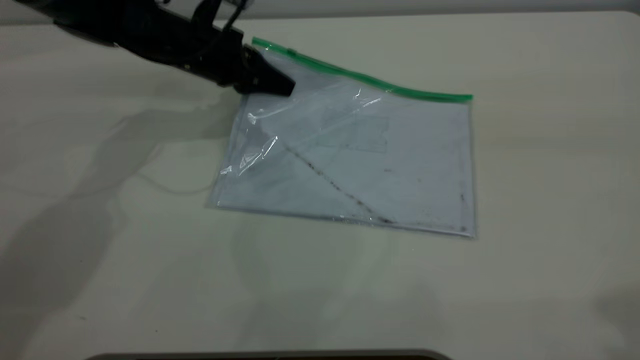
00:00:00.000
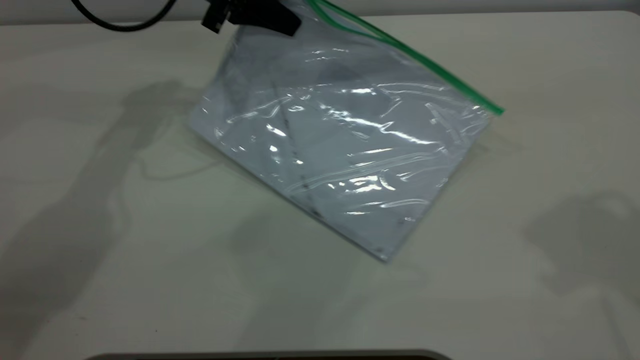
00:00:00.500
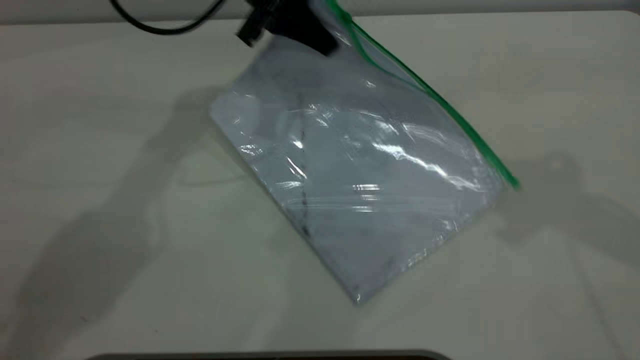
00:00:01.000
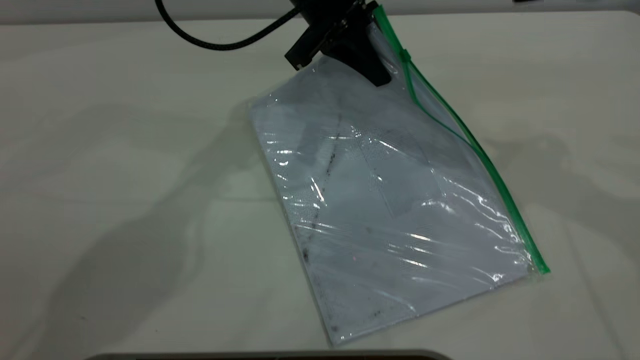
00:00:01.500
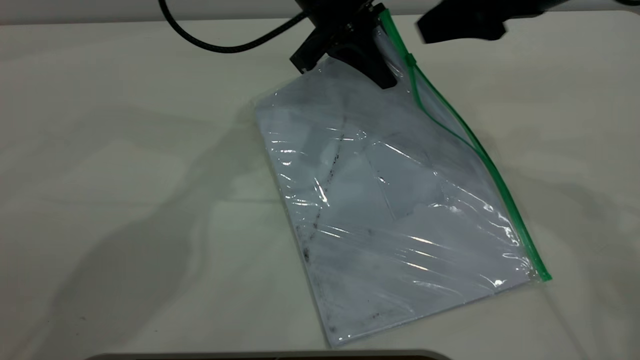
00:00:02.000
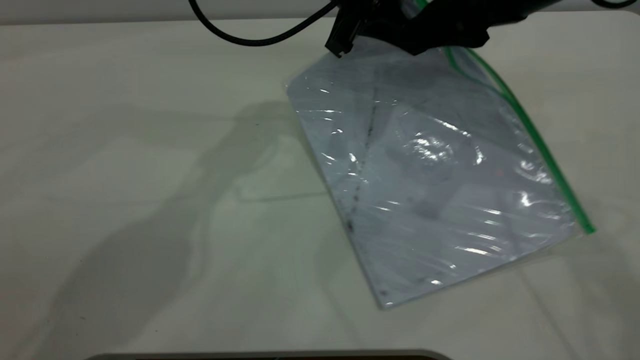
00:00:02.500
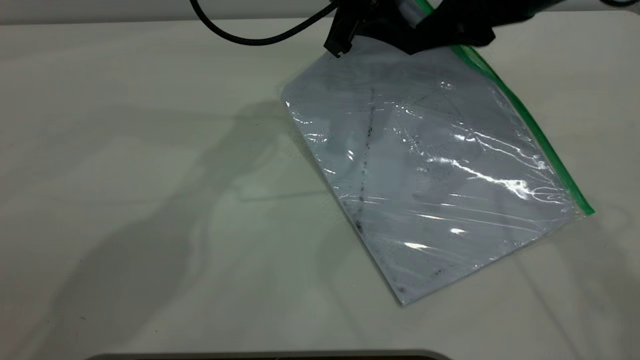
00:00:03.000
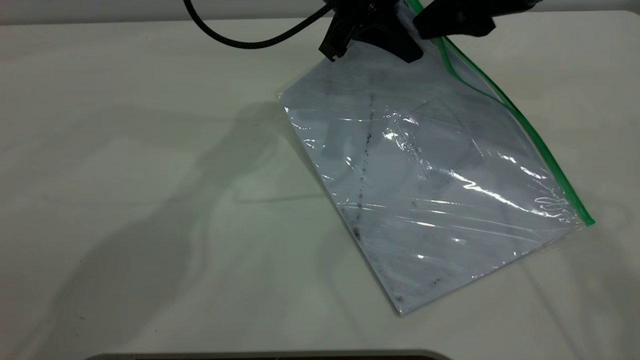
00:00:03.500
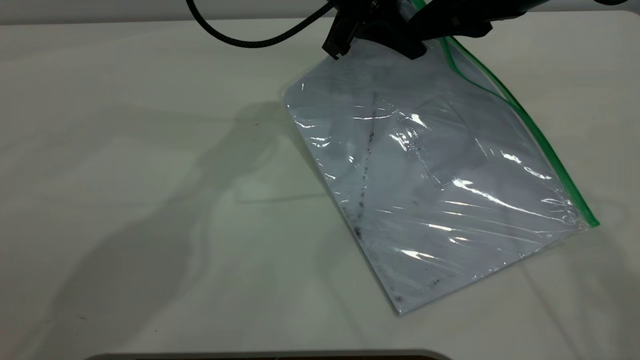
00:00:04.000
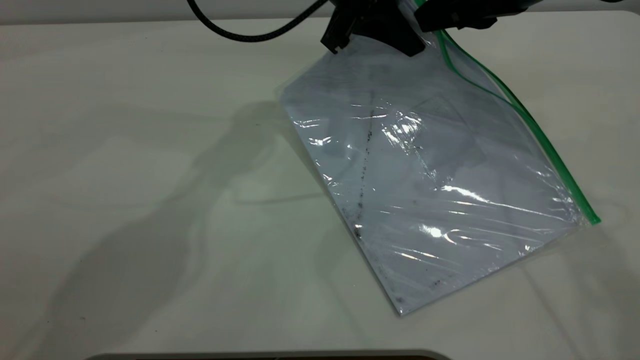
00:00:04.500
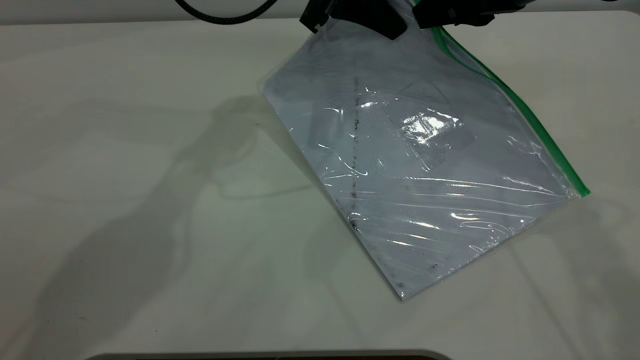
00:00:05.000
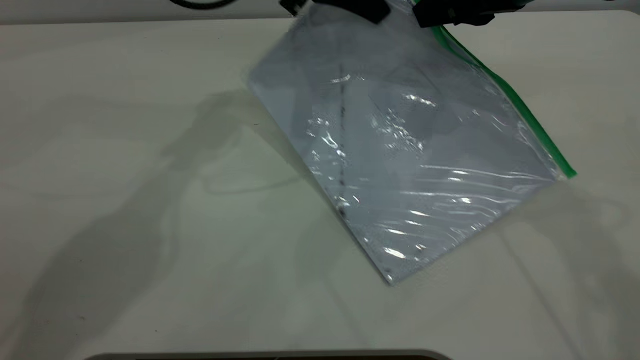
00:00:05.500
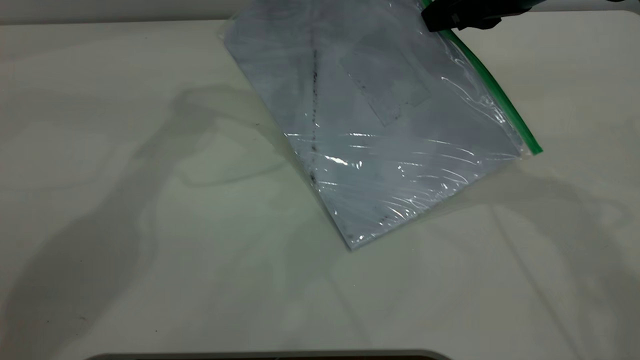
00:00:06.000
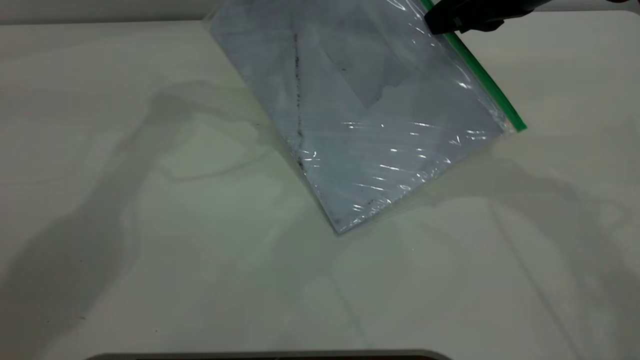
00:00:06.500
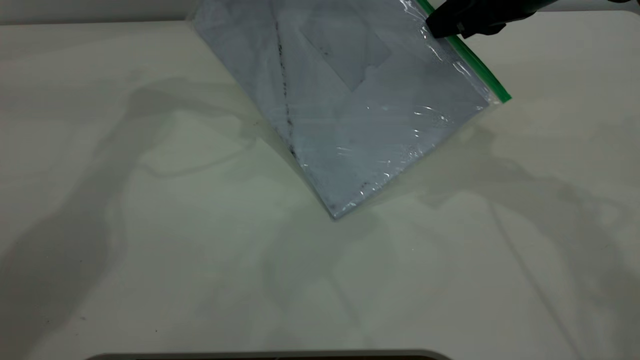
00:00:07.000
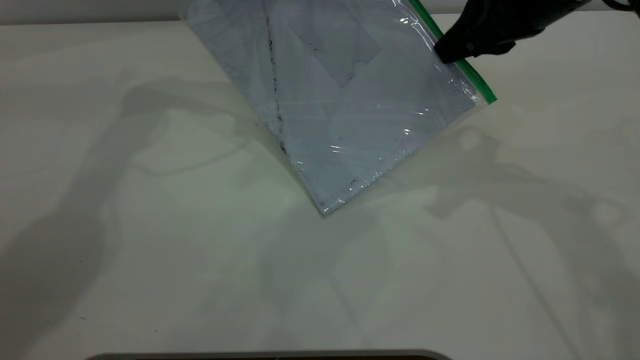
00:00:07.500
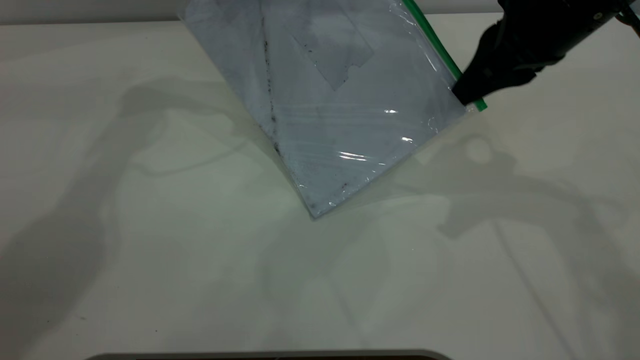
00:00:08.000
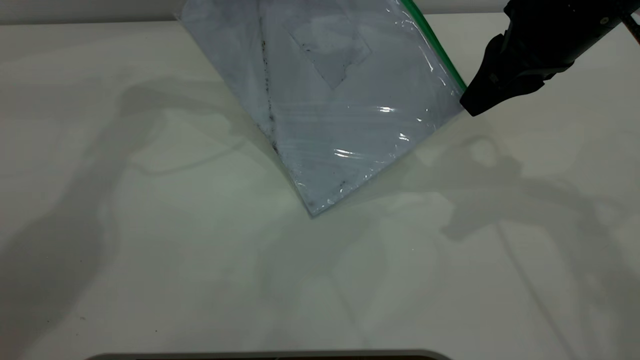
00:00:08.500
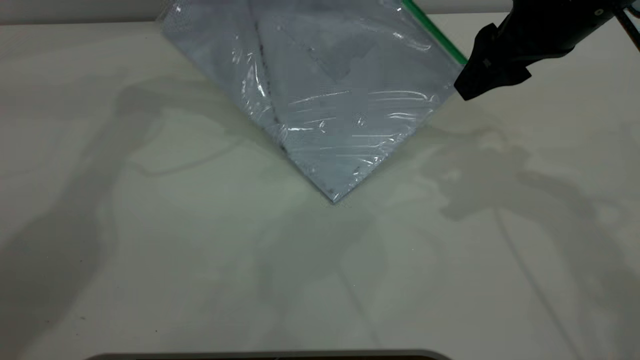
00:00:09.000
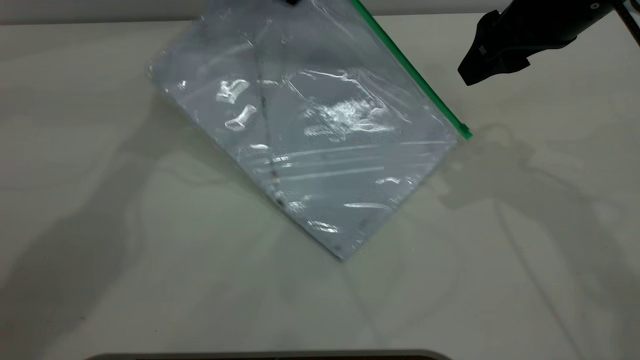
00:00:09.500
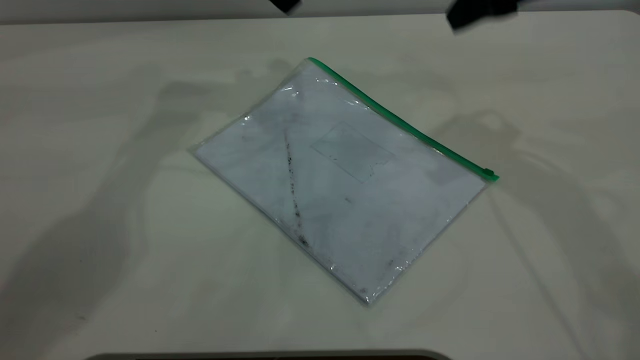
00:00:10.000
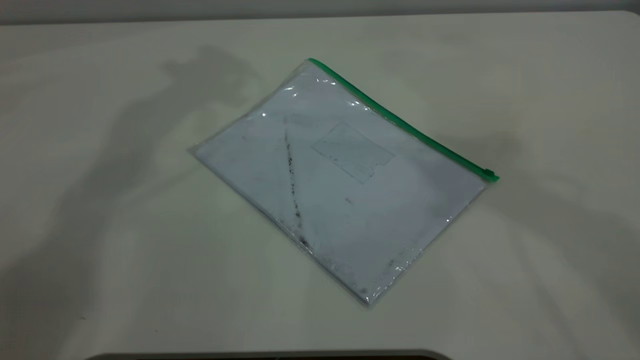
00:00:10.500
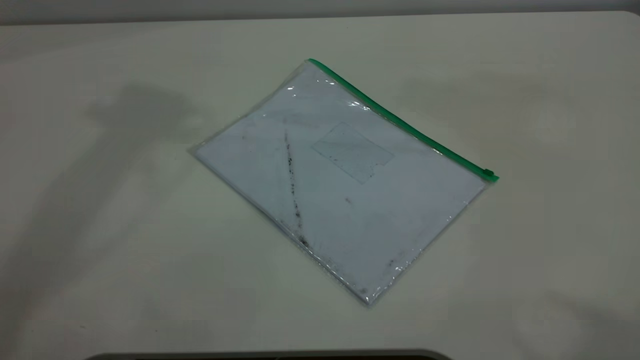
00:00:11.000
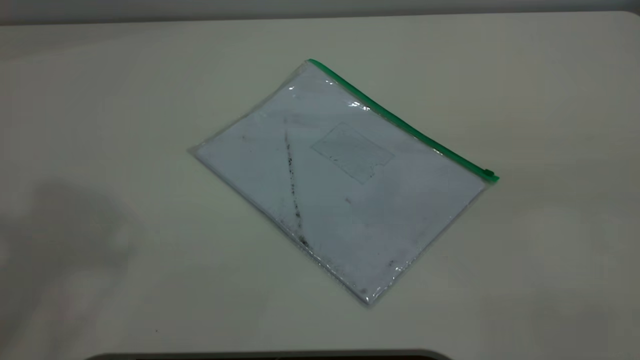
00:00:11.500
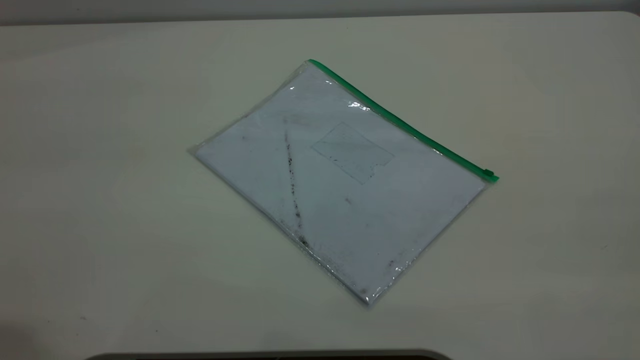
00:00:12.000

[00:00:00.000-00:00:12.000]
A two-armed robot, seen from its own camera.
Step, 00:00:00.500 to 00:00:09.000: Pulling up the zipper on the transparent plastic bag with the right gripper to close it.
00:00:00.000 to 00:00:02.000: The right gripper heads forward, downward and to the left, covering about 25 cm. Meanwhile the left gripper travels to the right and upward by roughly 20 cm.
00:00:02.000 to 00:00:04.000: The right gripper closes up.
00:00:04.000 to 00:00:06.000: The left gripper is displaced to the left and upward by some 10 cm.
00:00:06.000 to 00:00:08.000: The left gripper travels to the left by some 5 cm.
00:00:08.000 to 00:00:10.000: The left gripper opens up; the right gripper ends up some 5 cm from where it was, and opens its fingers.
00:00:10.000 to 00:00:12.000: The right gripper travels backward by some 35 cm.
